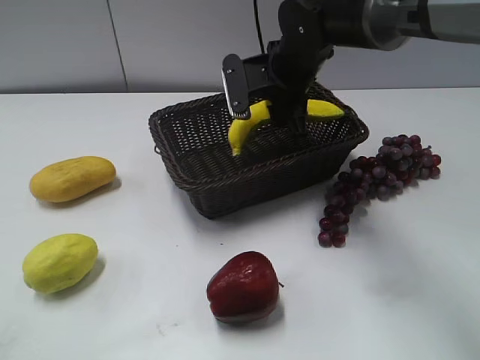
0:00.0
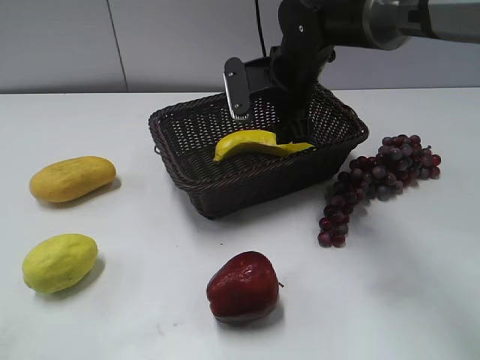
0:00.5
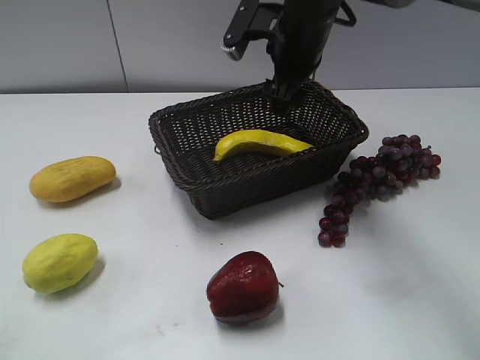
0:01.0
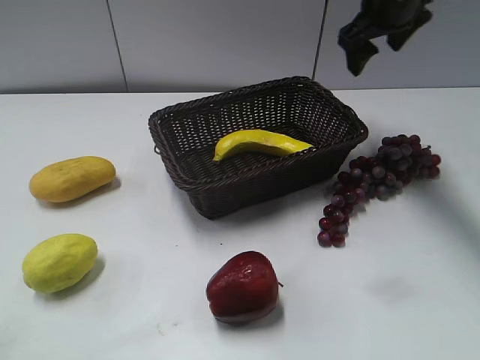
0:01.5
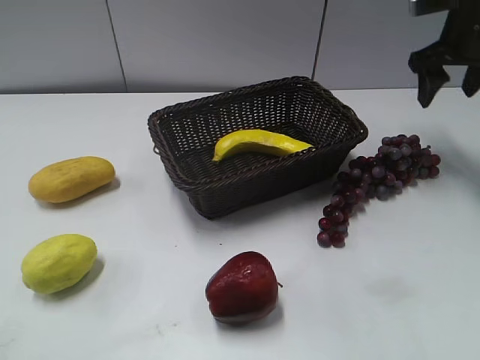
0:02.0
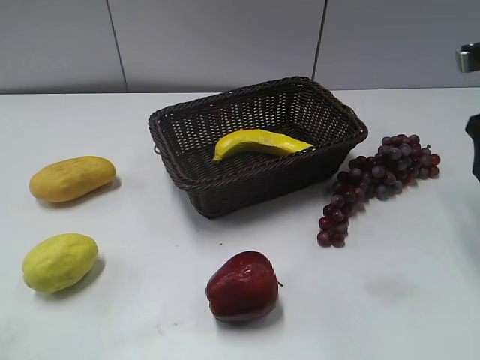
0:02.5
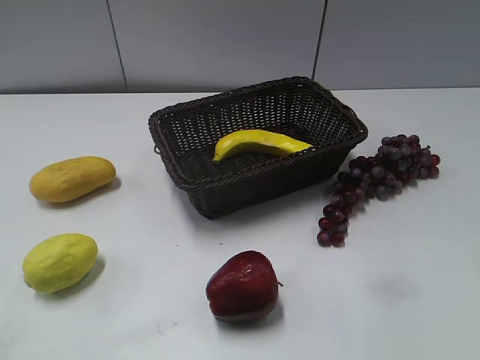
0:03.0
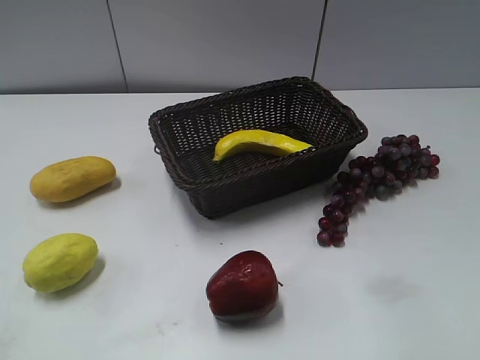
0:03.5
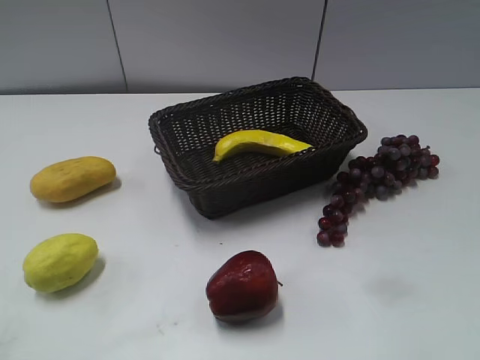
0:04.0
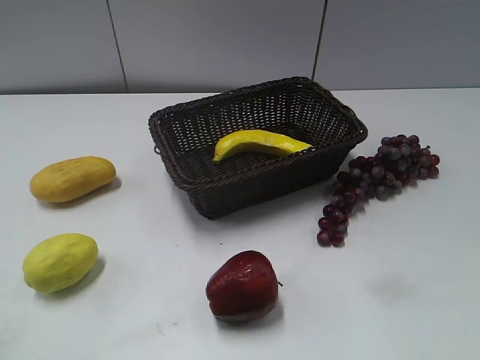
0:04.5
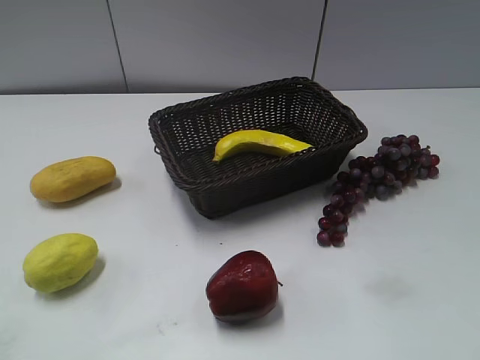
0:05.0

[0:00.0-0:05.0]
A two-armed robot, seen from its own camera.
0:00.0 to 0:02.5: The right gripper goes roughly 25 cm to the right and backward, and opens.
0:02.5 to 0:05.0: The right gripper goes approximately 30 cm backward.

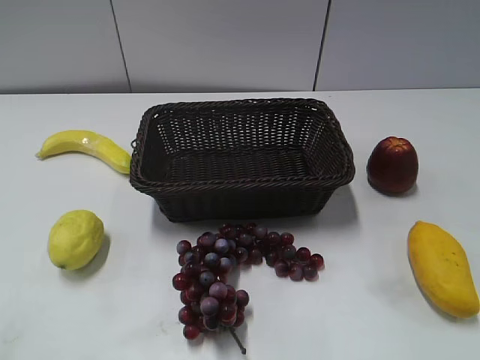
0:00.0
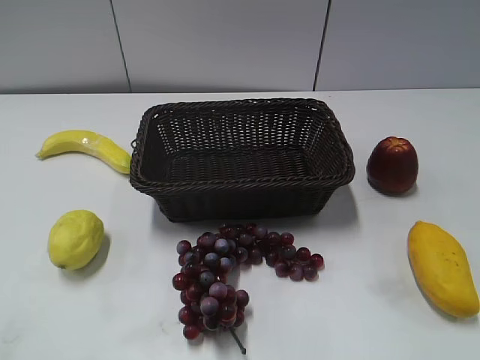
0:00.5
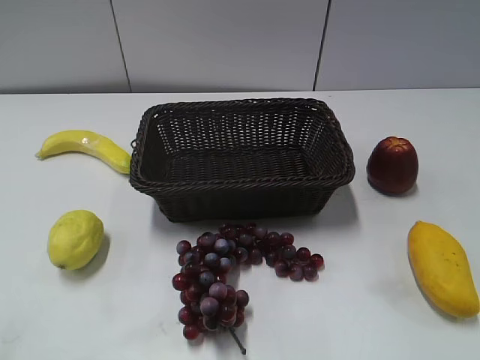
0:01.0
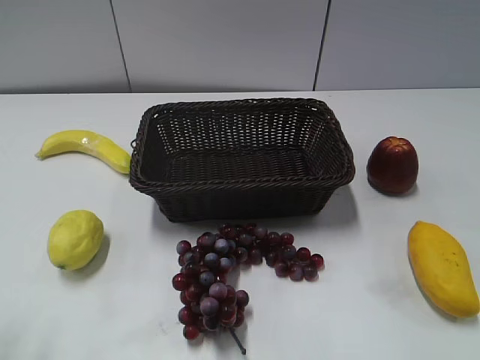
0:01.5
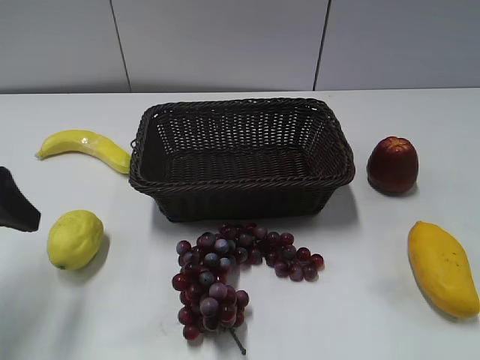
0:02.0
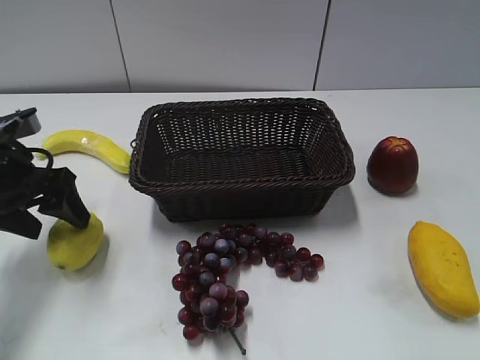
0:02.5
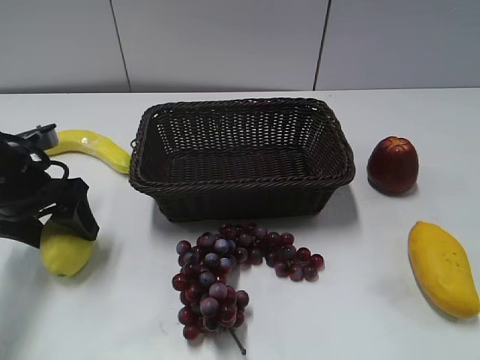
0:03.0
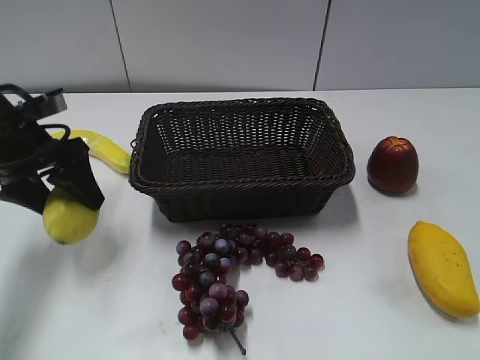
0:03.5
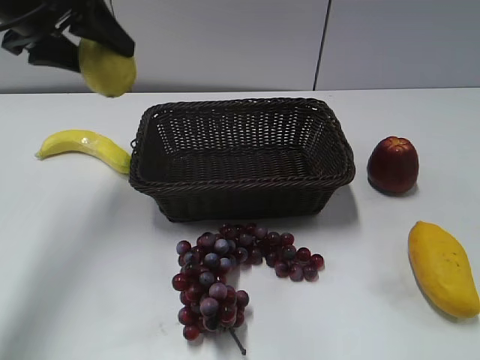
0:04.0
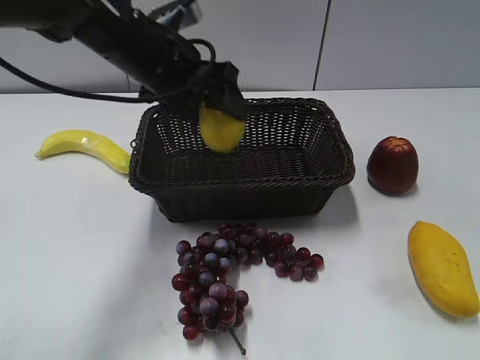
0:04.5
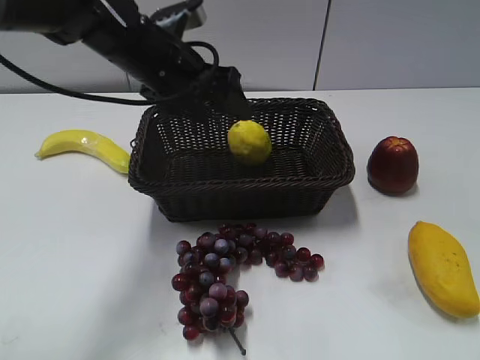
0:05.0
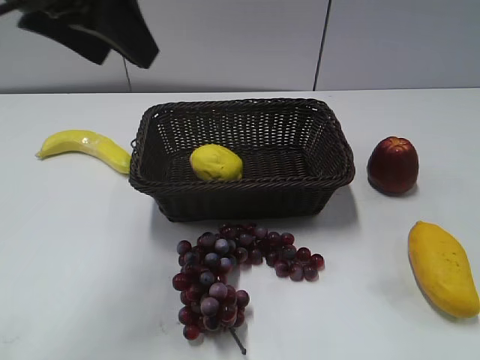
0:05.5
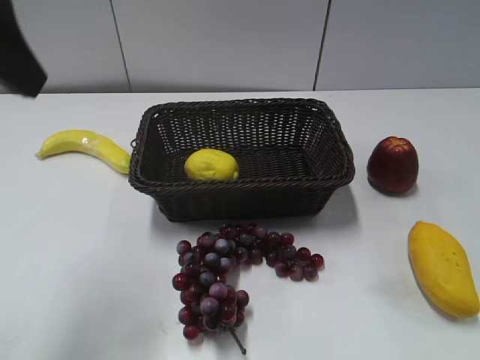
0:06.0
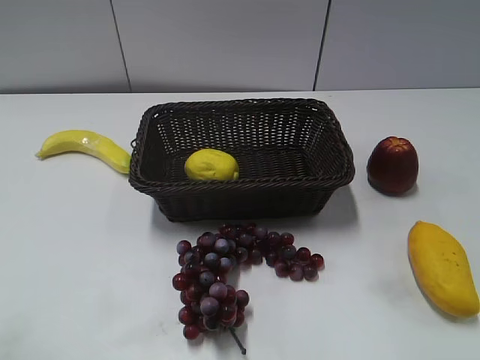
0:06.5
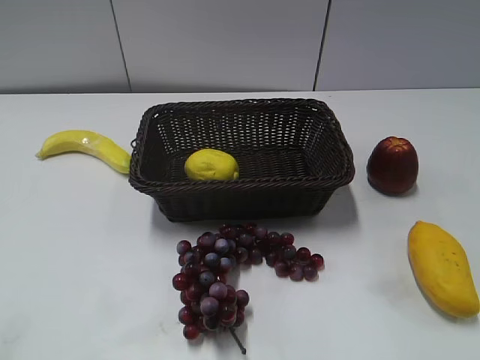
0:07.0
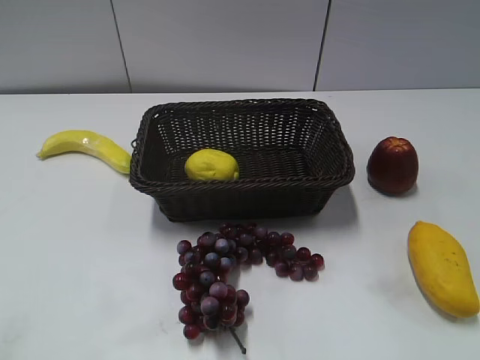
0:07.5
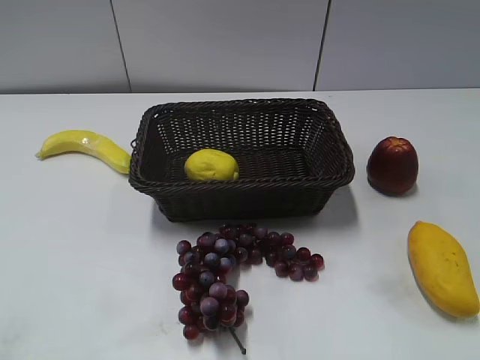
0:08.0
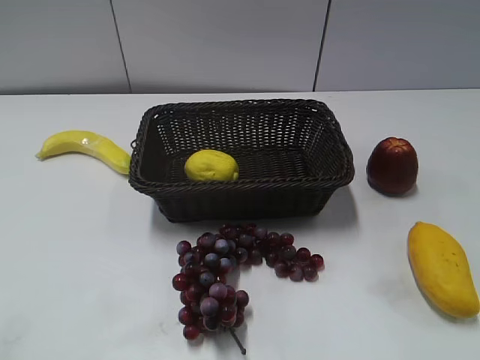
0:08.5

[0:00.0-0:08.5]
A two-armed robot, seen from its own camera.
Step, 0:02.0 to 0:03.0: Grasp the lemon with left gripper.
Step, 0:03.5 to 0:04.5: Place the lemon in the basket with left gripper.
0:02.0 to 0:04.0: The left gripper is displaced forward and upward by about 20 cm, and closes.
0:04.0 to 0:06.5: The left gripper travels backward by some 30 cm, and opens and closes again.
0:06.5 to 0:08.5: The left gripper travels backward by some 10 cm, and closes.
